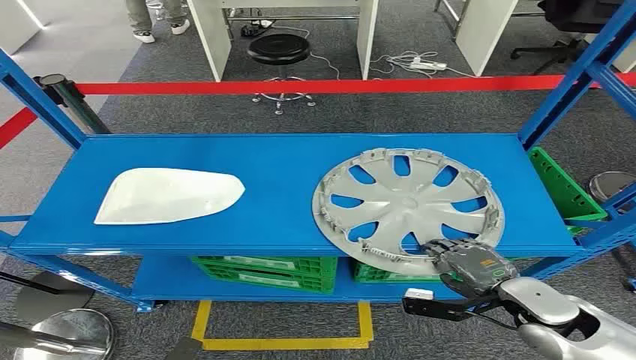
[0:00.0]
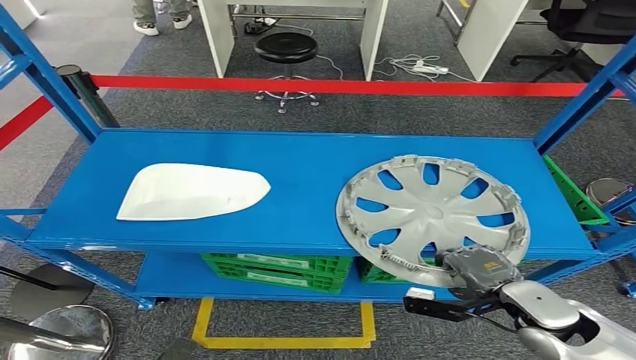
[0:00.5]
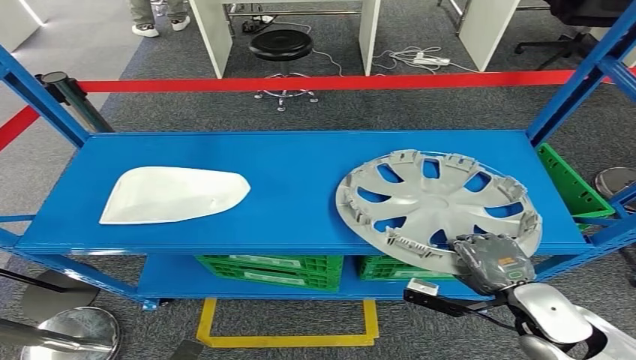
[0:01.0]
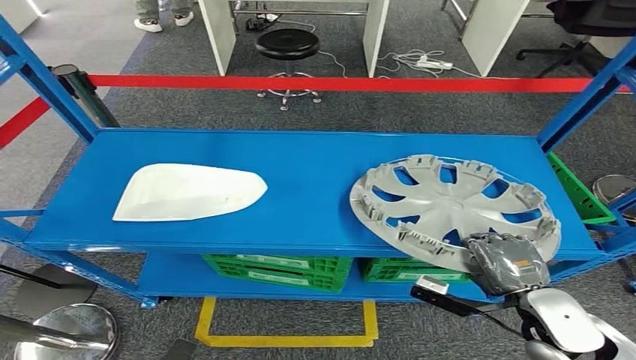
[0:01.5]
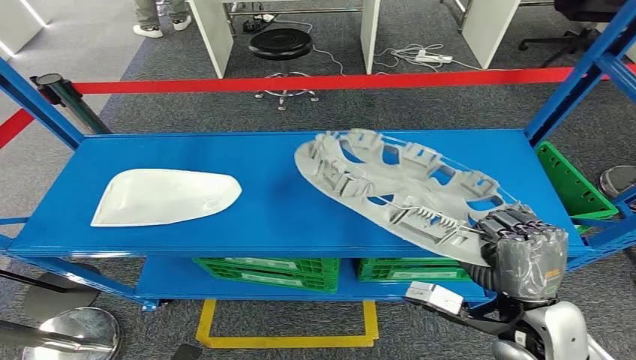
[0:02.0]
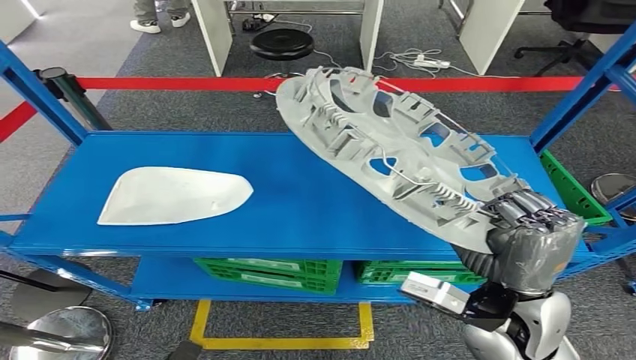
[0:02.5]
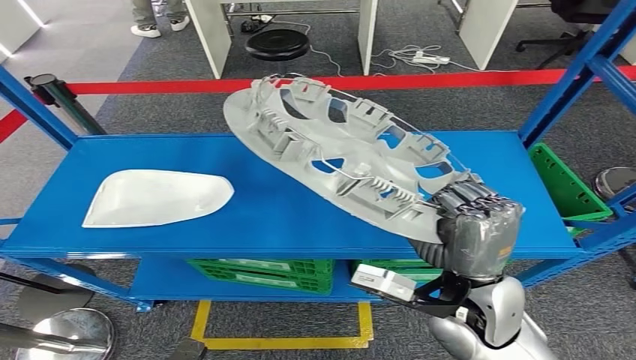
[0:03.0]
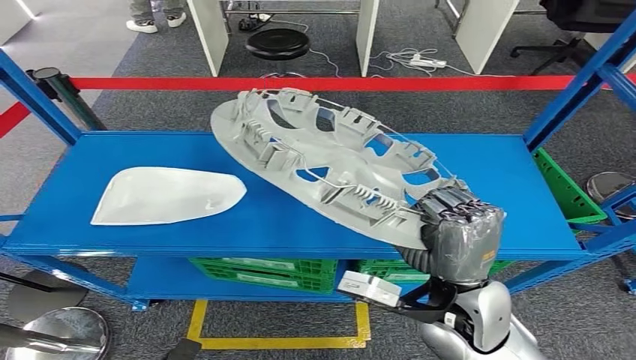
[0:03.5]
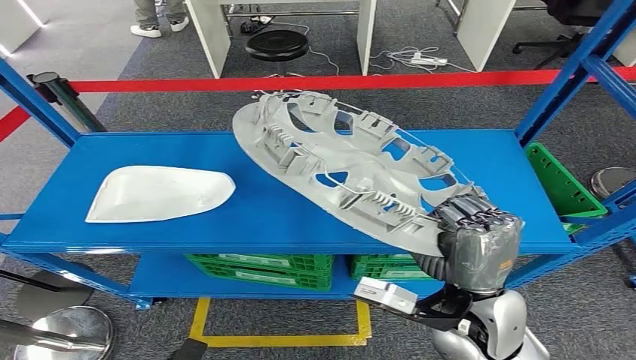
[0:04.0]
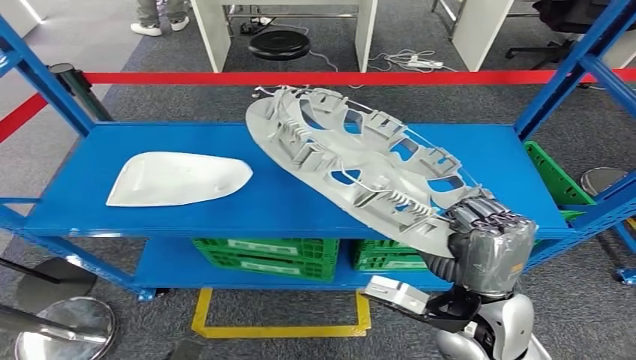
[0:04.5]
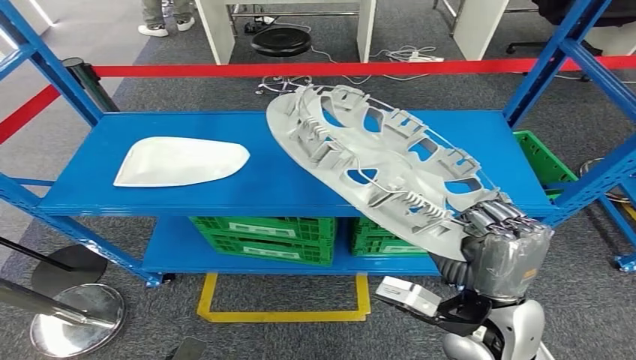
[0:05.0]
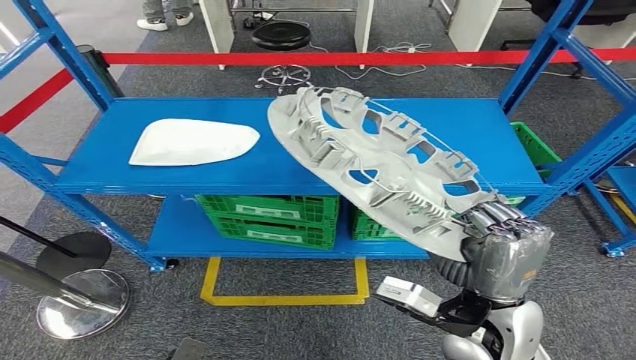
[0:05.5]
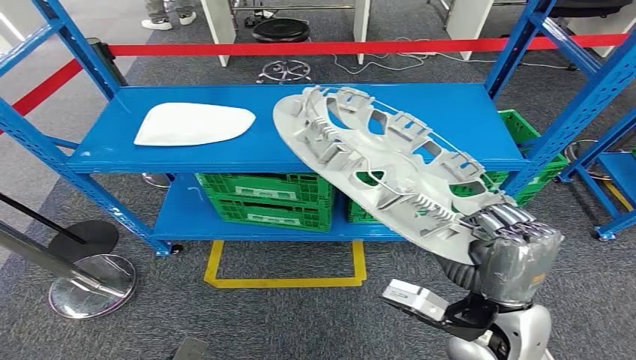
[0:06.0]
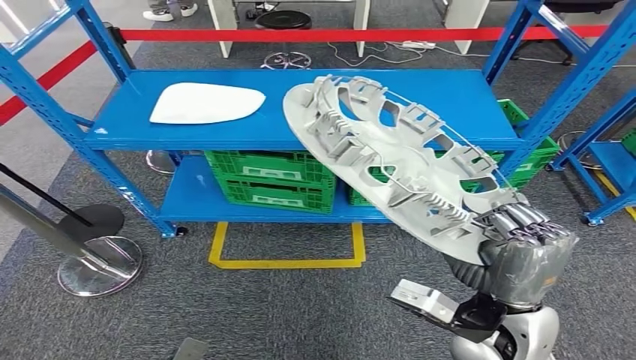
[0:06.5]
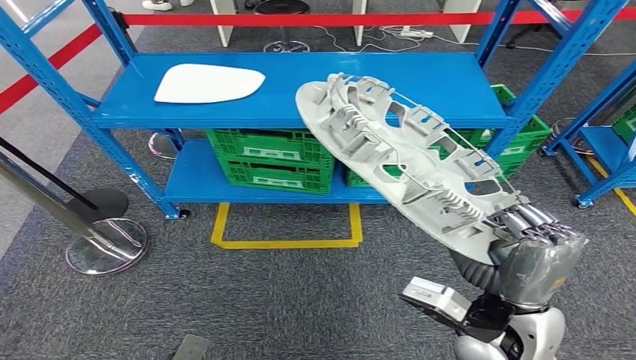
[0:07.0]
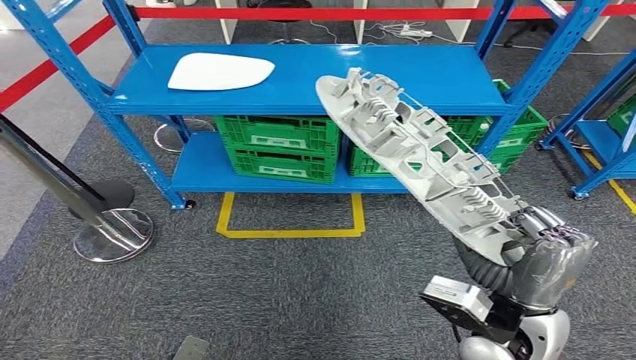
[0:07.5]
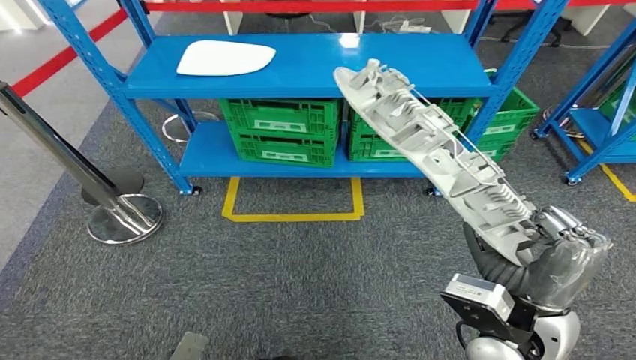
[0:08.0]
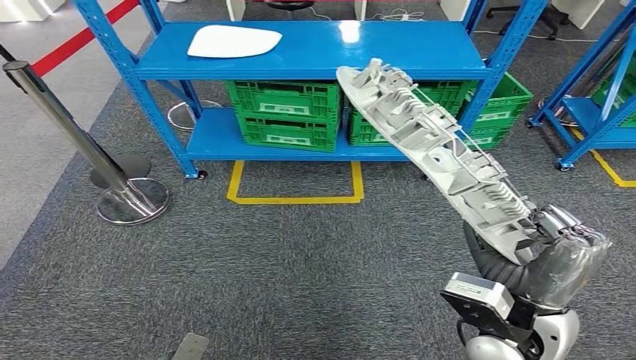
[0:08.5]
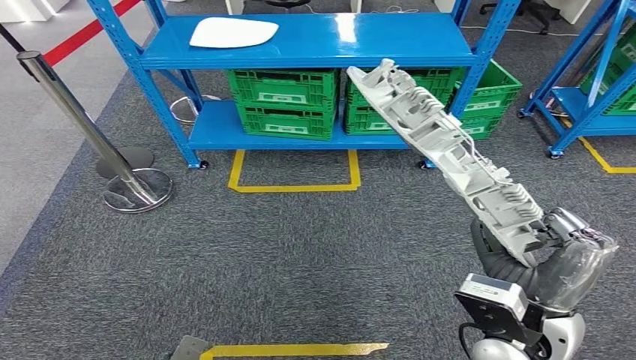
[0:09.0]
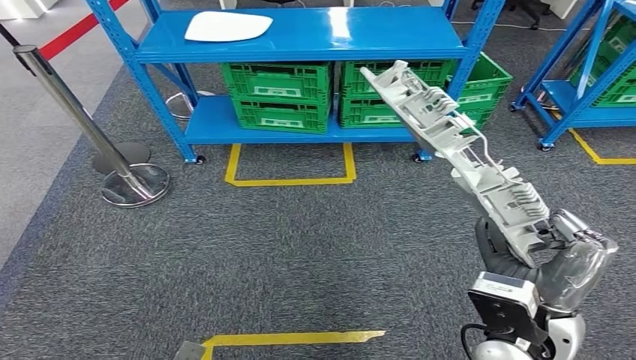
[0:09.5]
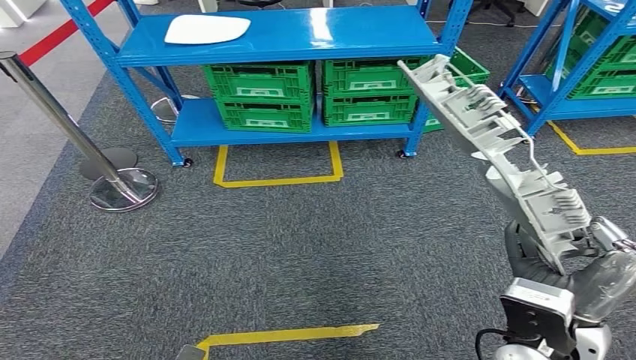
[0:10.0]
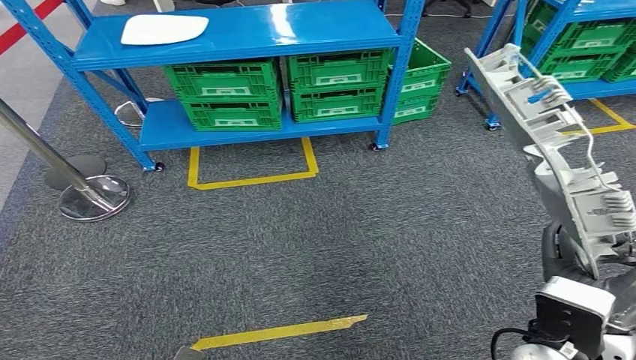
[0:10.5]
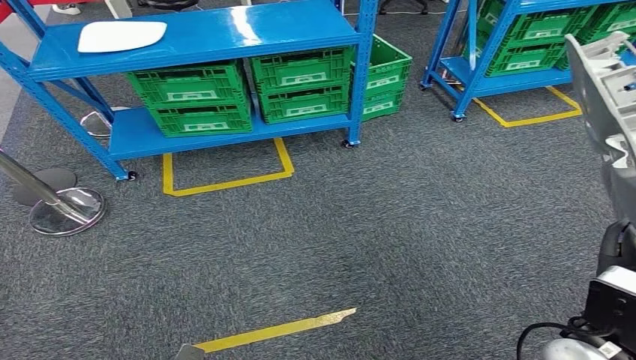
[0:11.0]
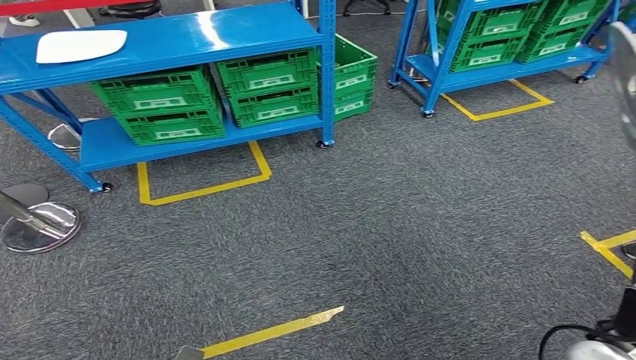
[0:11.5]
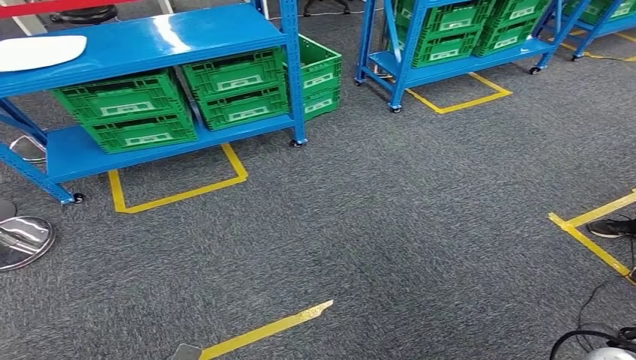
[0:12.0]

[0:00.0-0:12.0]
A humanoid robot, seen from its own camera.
Step, 0:00.0 to 0:05.0: Pick up the small component from the shelf.

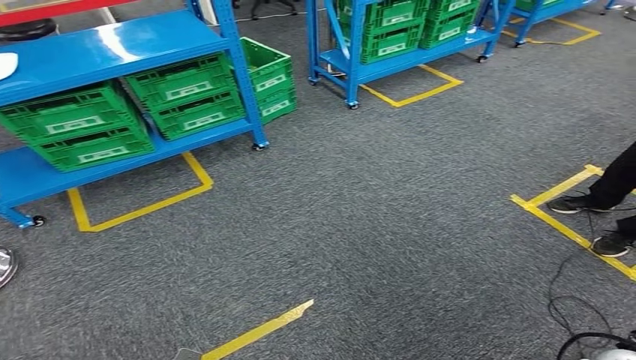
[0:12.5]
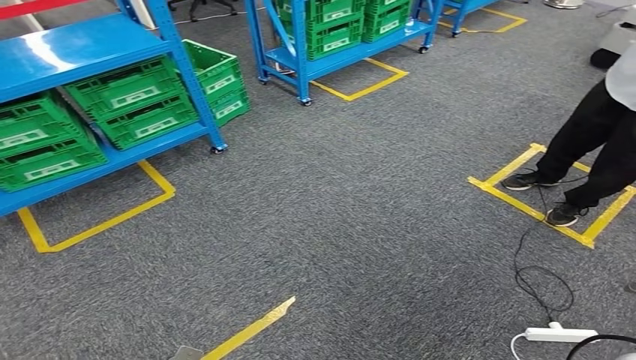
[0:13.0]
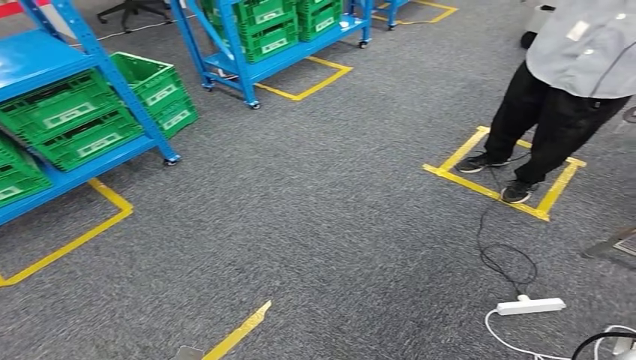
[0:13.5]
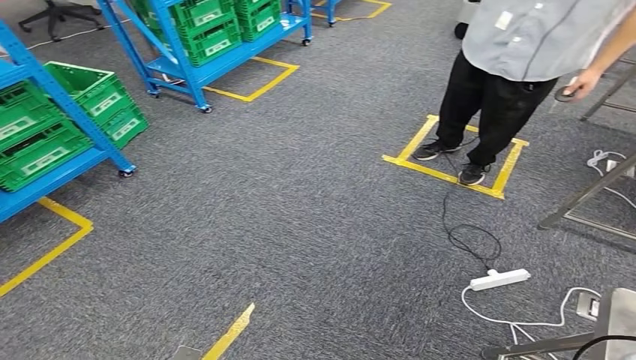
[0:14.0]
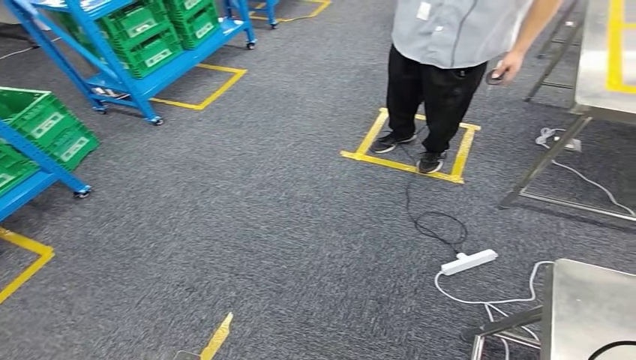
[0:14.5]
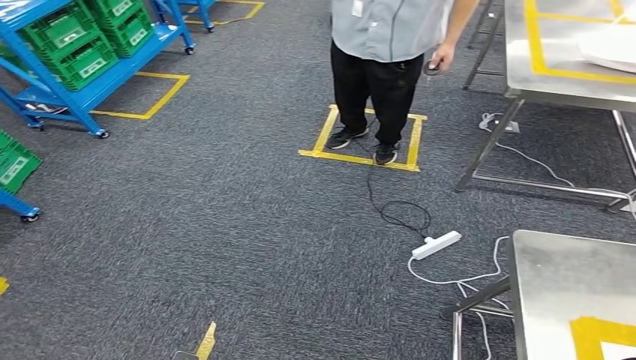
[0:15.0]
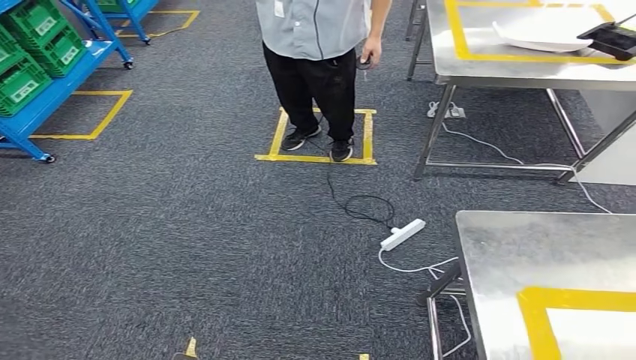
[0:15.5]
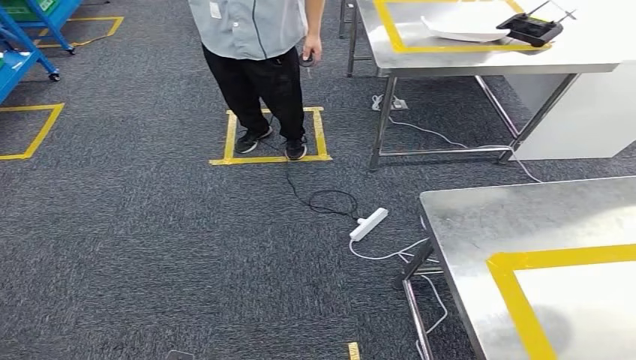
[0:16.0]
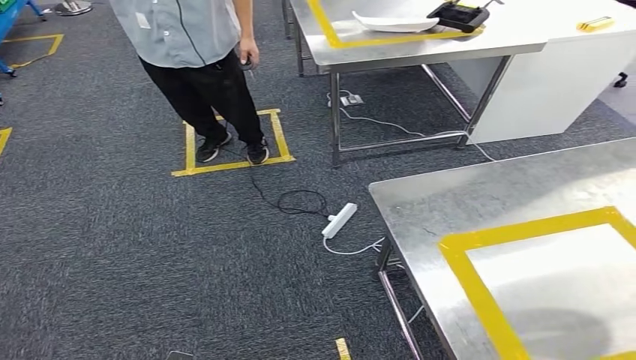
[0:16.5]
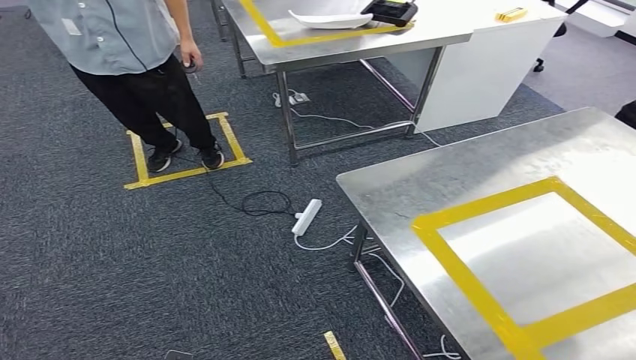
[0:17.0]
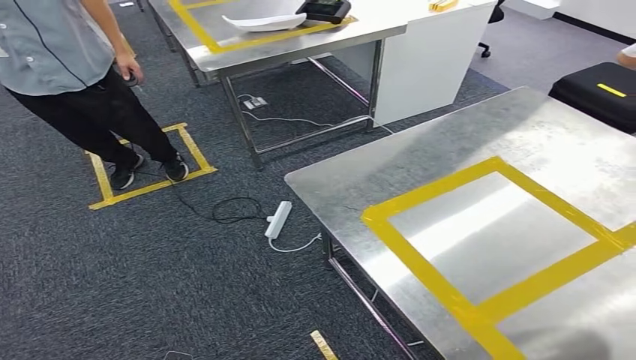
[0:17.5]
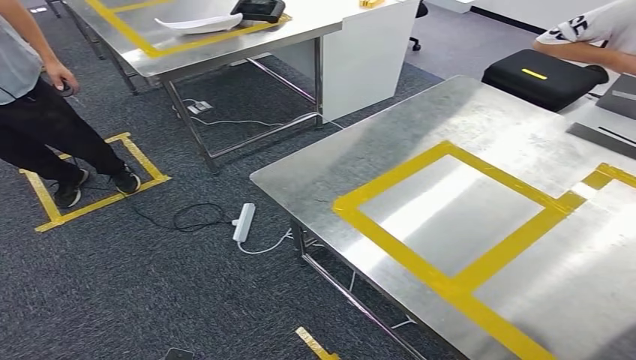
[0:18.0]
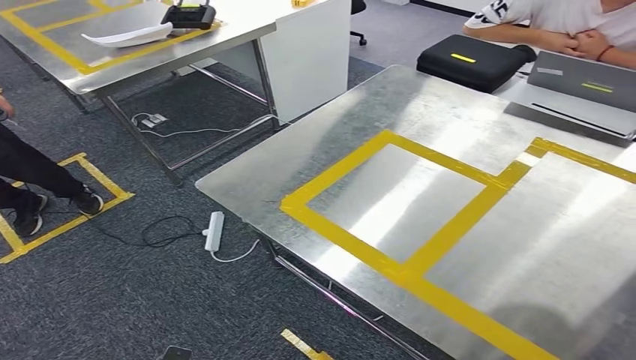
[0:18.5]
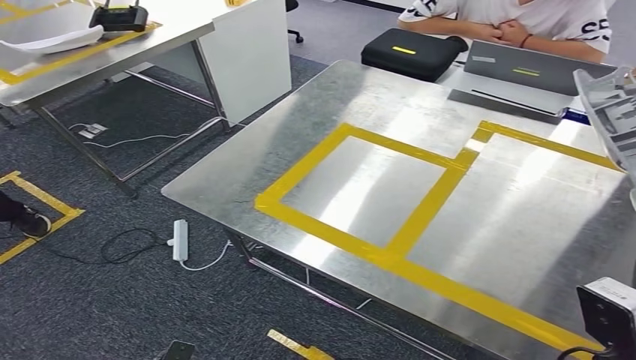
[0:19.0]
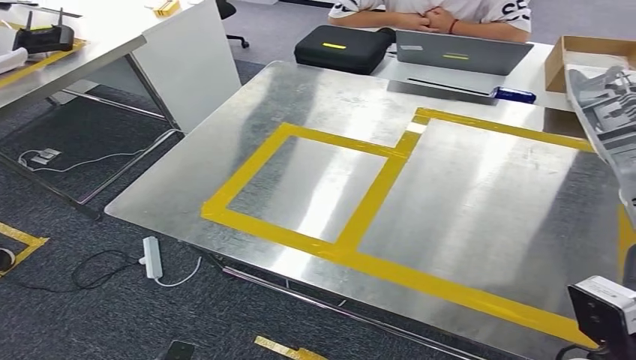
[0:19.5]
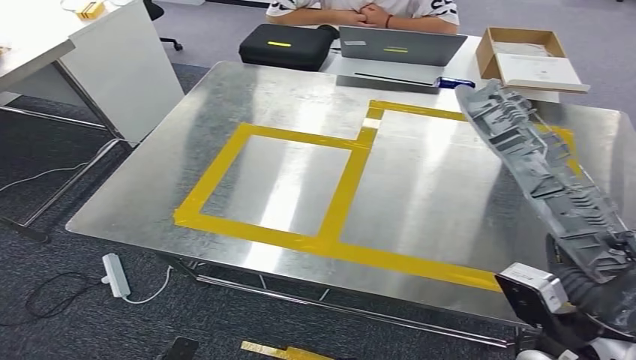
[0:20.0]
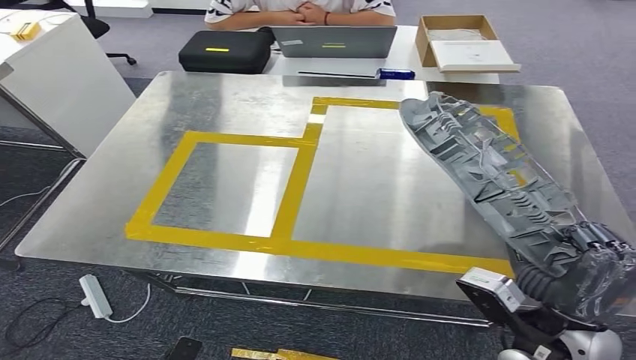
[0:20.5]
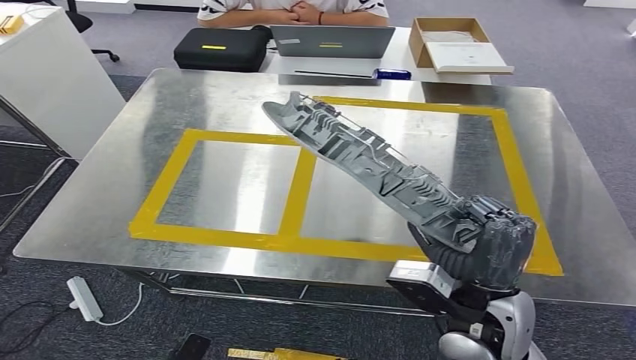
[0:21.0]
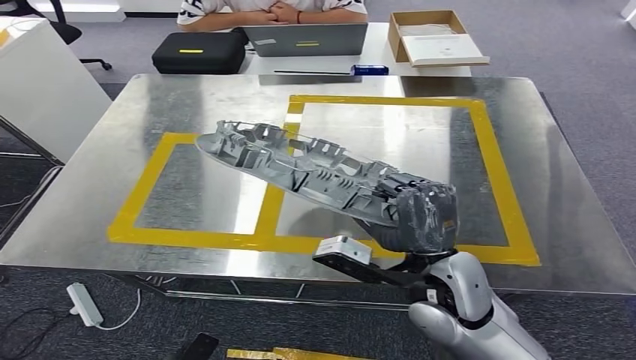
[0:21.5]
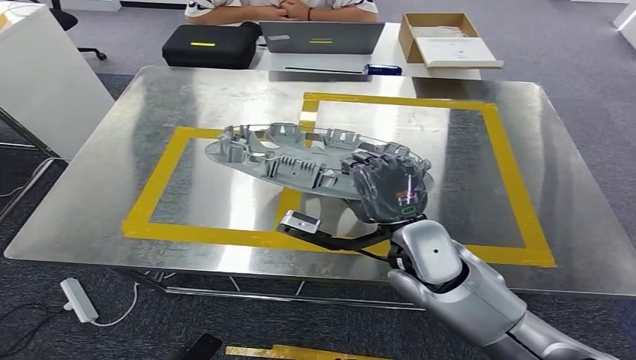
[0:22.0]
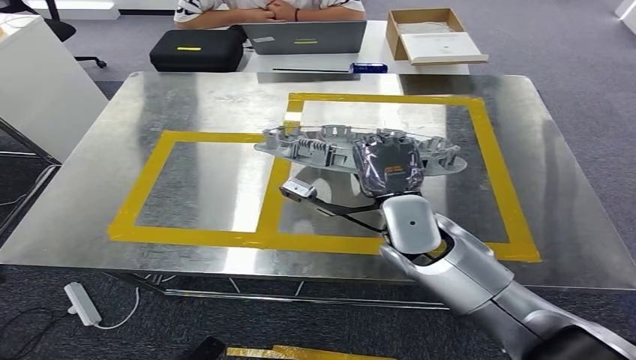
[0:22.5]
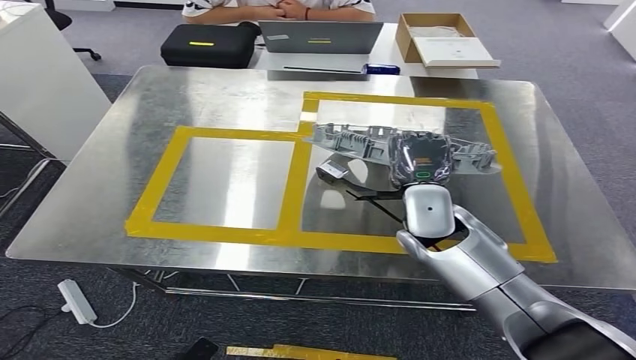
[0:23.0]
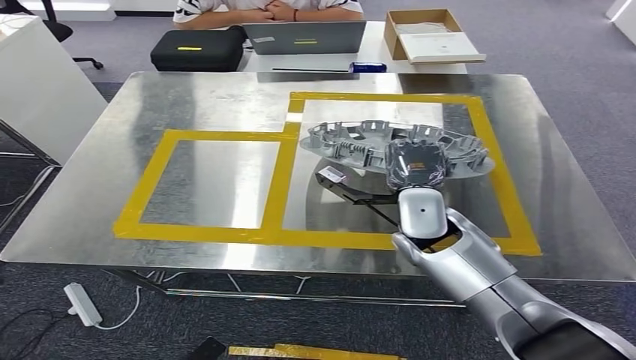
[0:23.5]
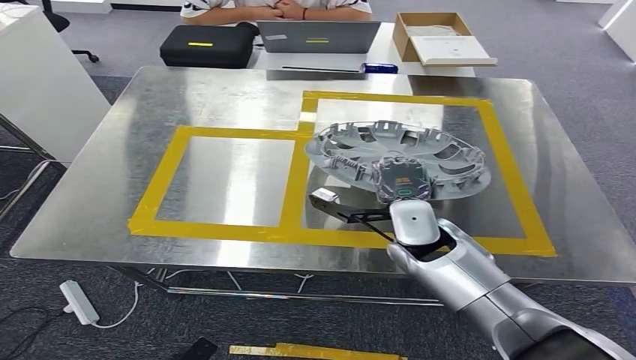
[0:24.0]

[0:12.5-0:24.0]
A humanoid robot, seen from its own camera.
Step, 0:12.5 to 0:21.0: Move the small component to the workbench.
